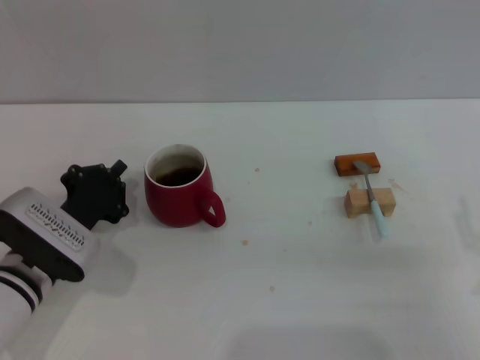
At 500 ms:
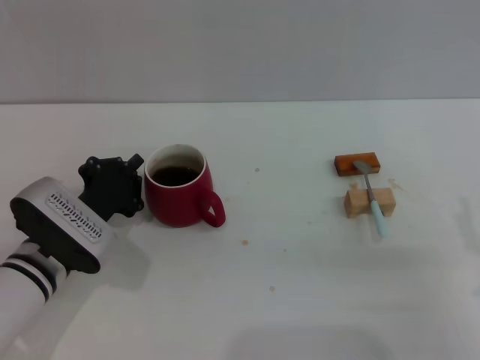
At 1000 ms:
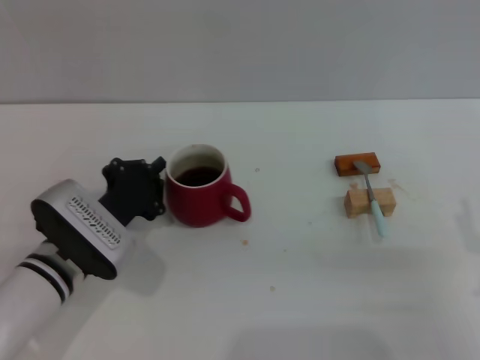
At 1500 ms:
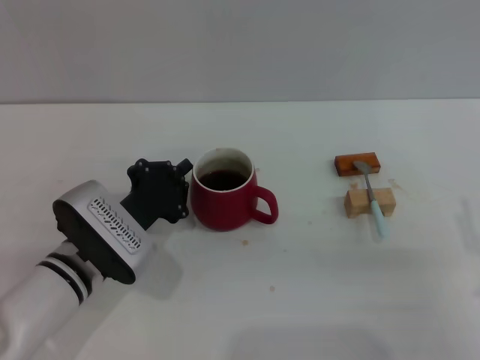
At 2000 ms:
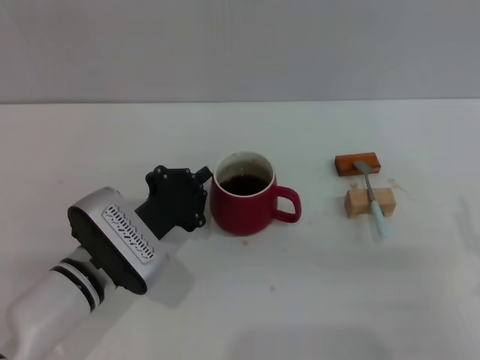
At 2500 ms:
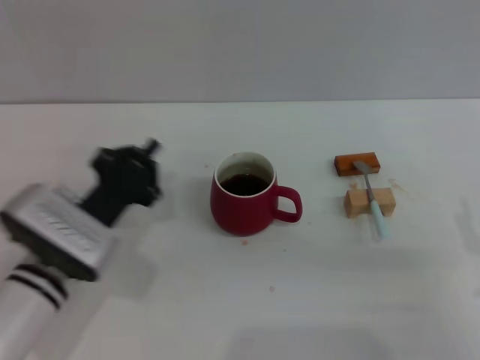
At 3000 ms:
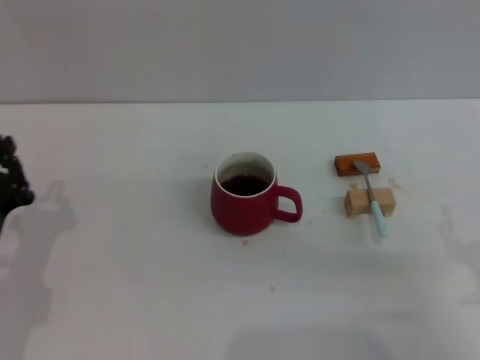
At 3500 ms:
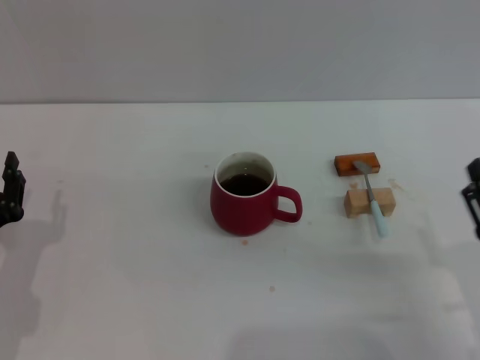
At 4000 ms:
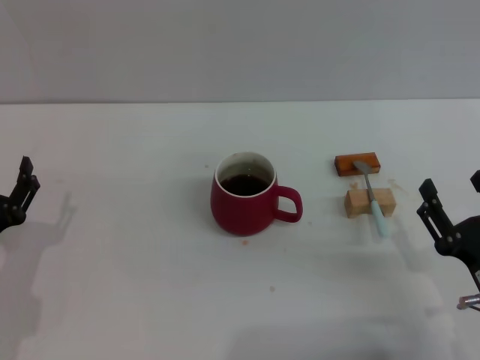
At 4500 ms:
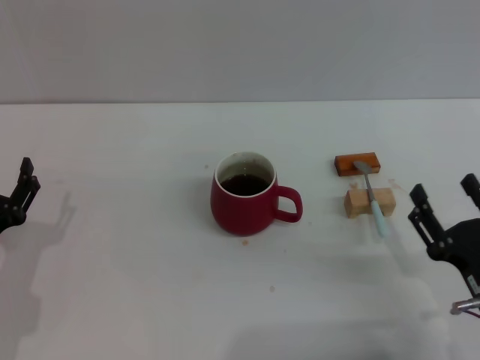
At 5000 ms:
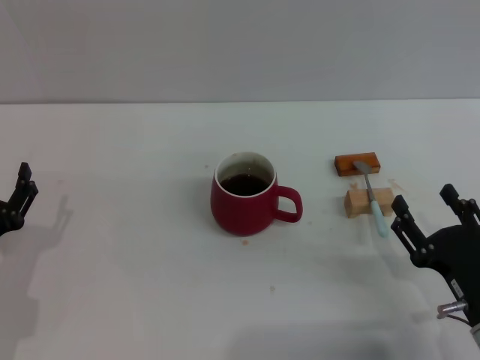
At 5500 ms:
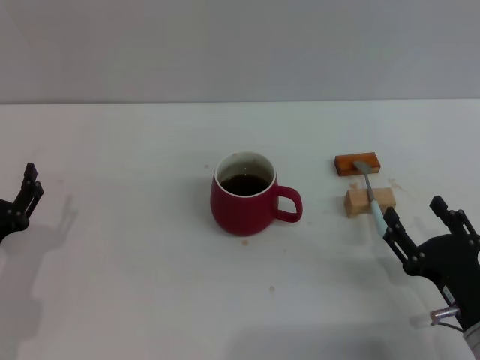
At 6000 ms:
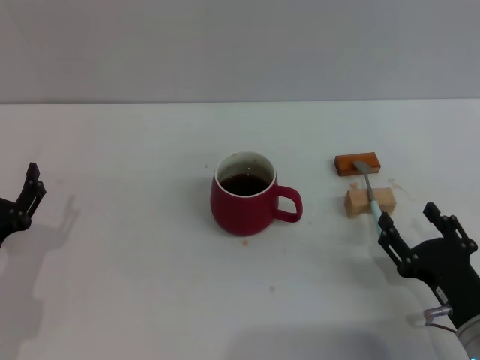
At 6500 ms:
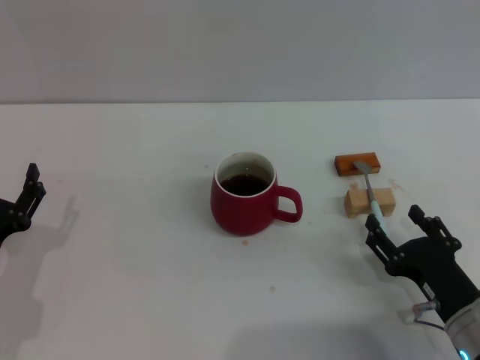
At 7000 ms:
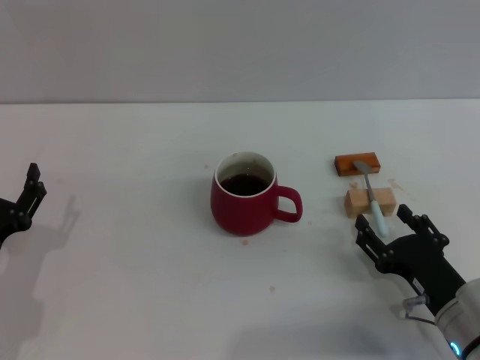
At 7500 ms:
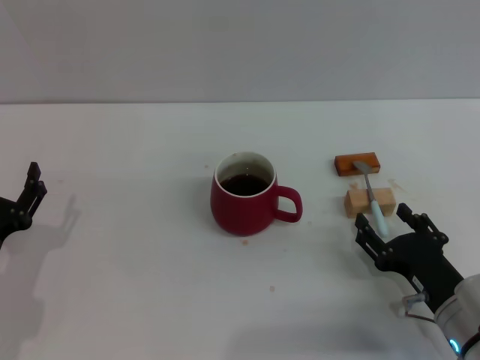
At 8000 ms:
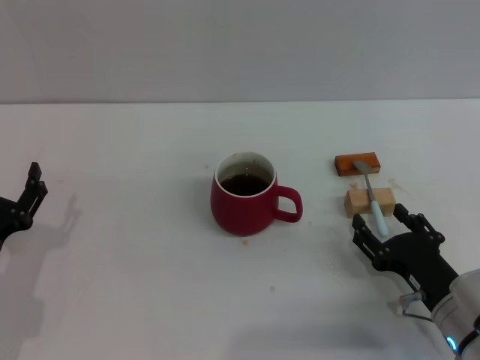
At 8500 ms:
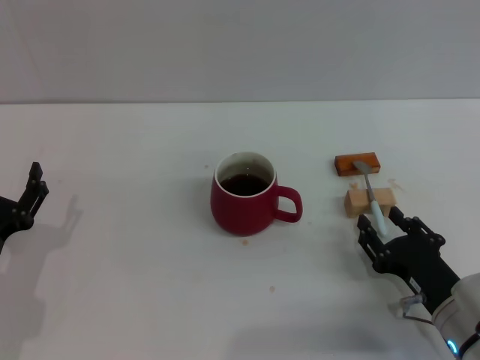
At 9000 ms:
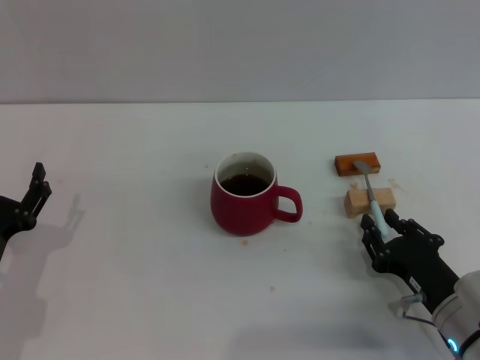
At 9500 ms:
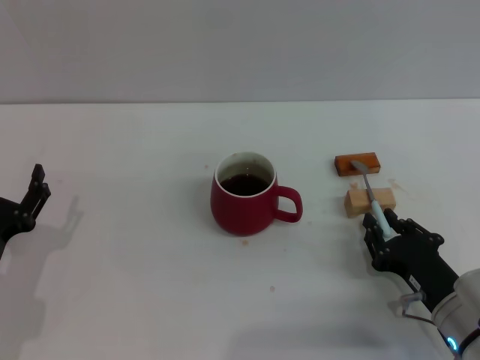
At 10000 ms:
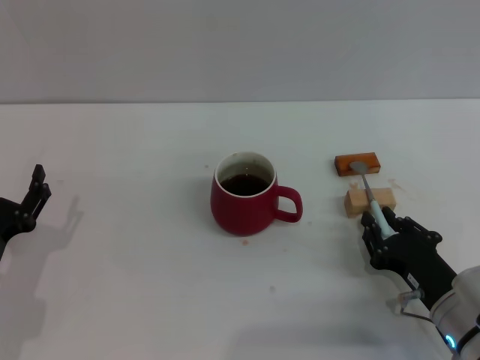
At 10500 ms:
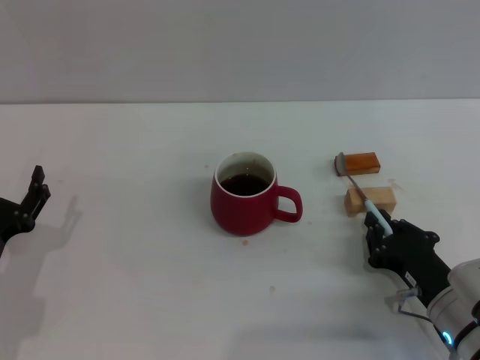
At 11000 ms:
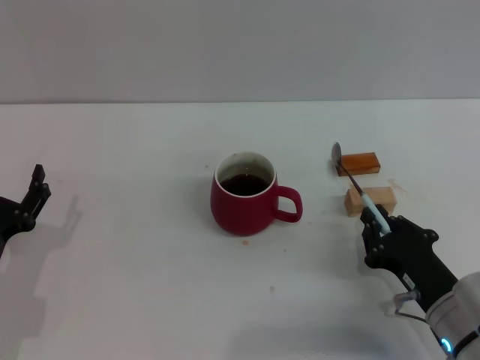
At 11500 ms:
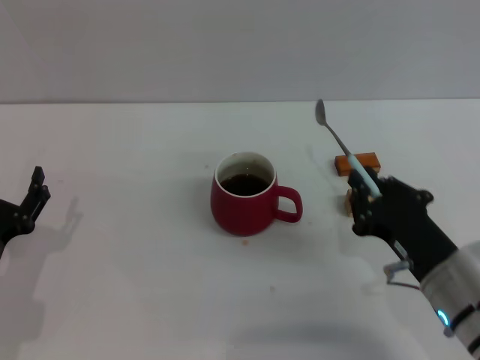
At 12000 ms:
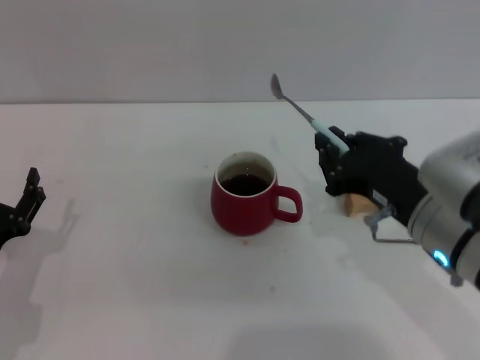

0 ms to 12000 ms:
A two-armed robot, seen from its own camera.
Task of the whole recording: Move the red cup to the center, lift the blue spoon, stir it three times in the cup, and put the spoon into the cup.
Step, 0 ms to 2000 ms: Move the cup with coffee to the center of view with the left gripper.
Step, 3000 ms to 11000 ms: Pick up the spoon with the right gripper.
0 ms to 2000 ms: The left gripper is displaced to the right by about 5 cm.
2000 ms to 4000 ms: The right gripper shifts by about 5 cm. The left gripper moves to the left and backward, some 15 cm, and opens.
4000 ms to 6000 ms: The grippers make only small movements.
6000 ms to 8000 ms: The grippers stay close to where they were, moving slightly.
8000 ms to 10000 ms: The right gripper closes its fingers.
10000 ms to 12000 ms: The right gripper heads upward, covering roughly 15 cm.

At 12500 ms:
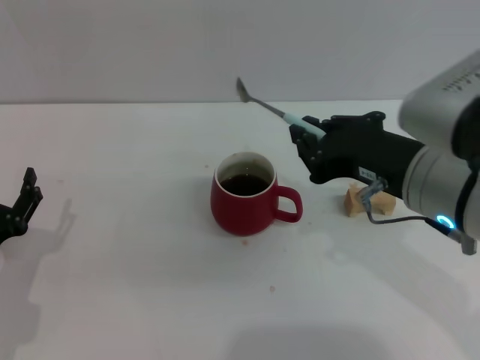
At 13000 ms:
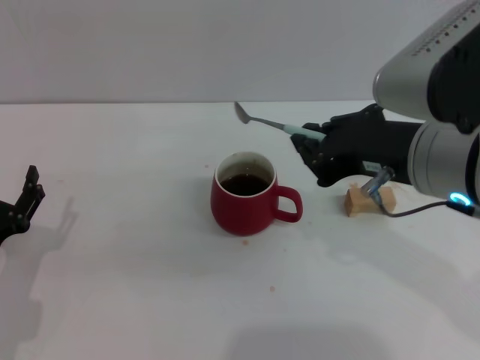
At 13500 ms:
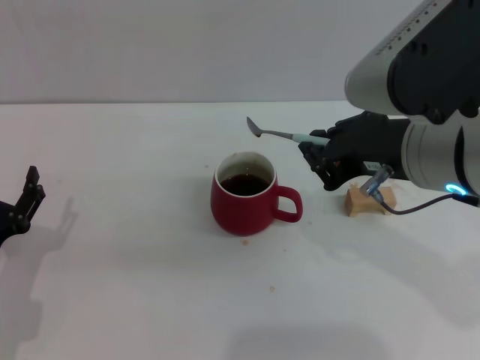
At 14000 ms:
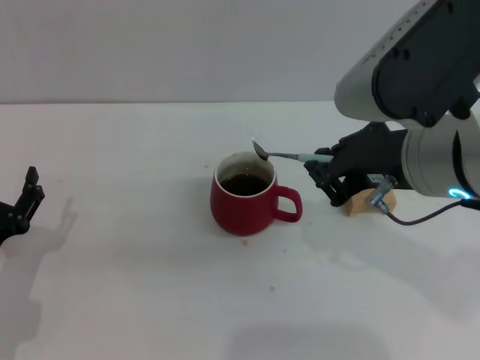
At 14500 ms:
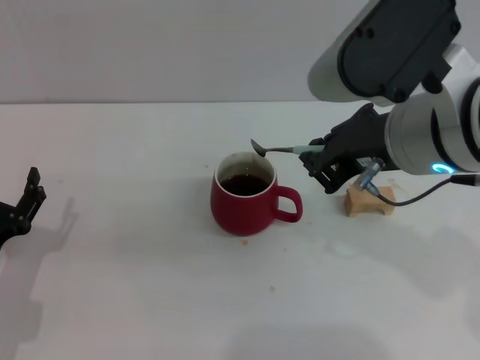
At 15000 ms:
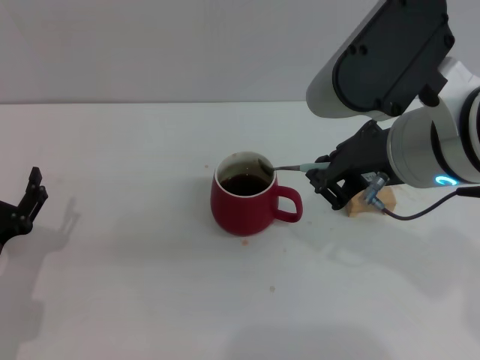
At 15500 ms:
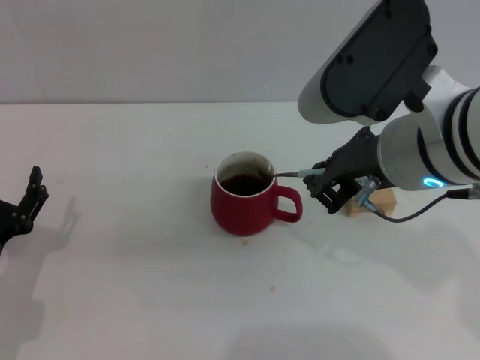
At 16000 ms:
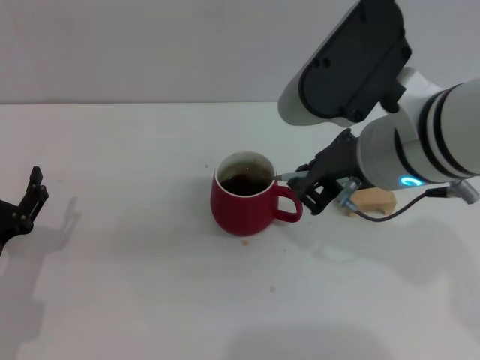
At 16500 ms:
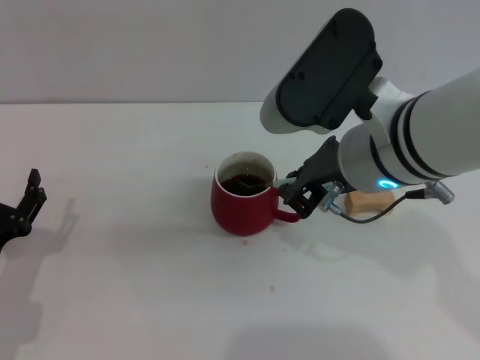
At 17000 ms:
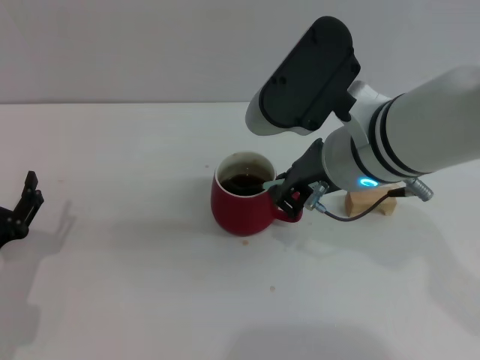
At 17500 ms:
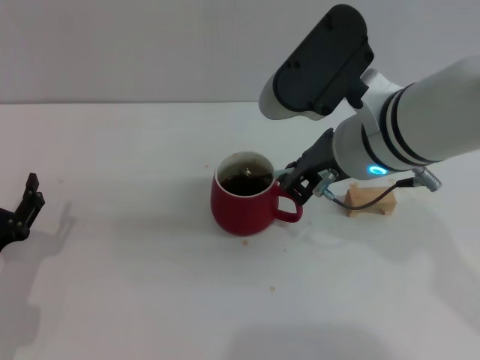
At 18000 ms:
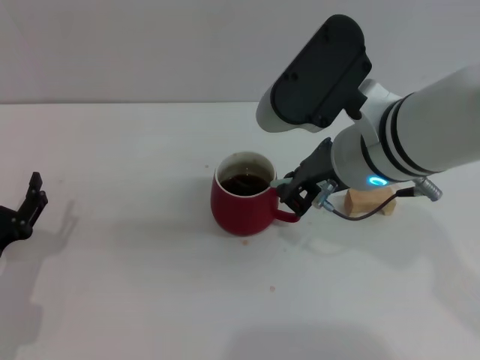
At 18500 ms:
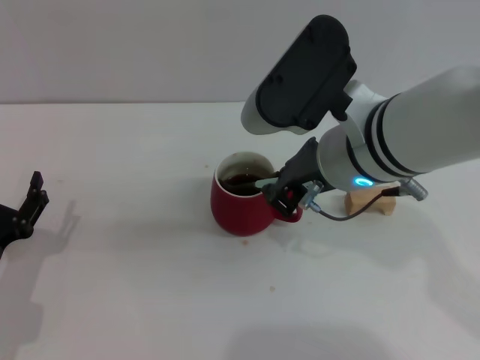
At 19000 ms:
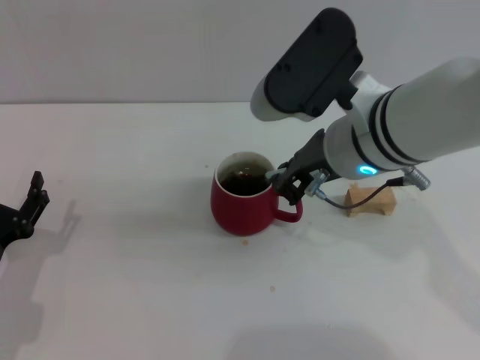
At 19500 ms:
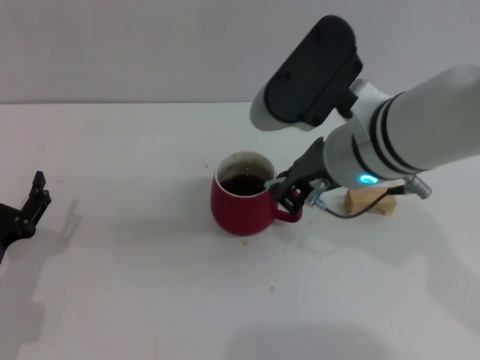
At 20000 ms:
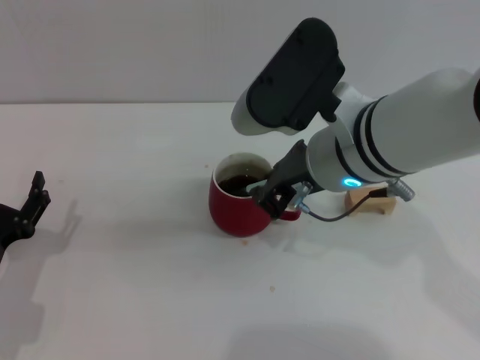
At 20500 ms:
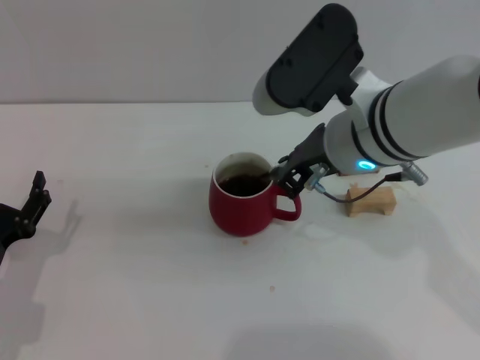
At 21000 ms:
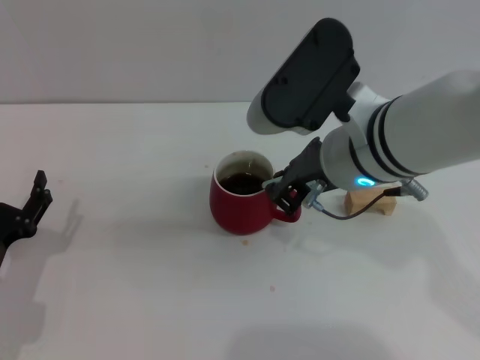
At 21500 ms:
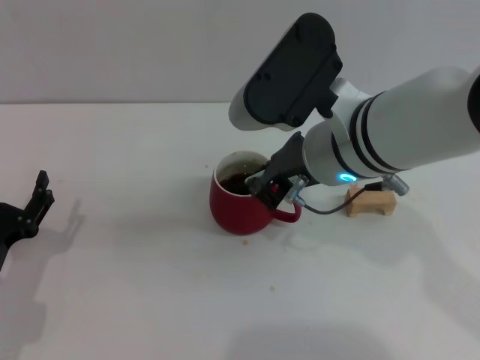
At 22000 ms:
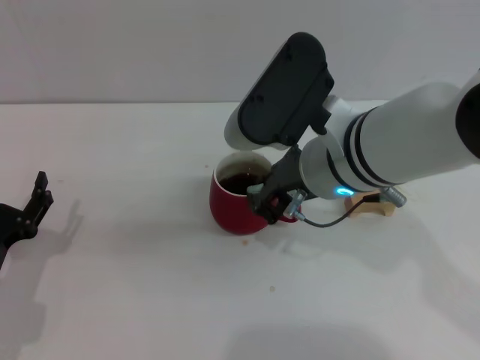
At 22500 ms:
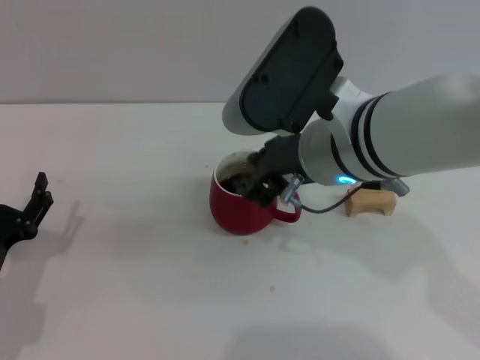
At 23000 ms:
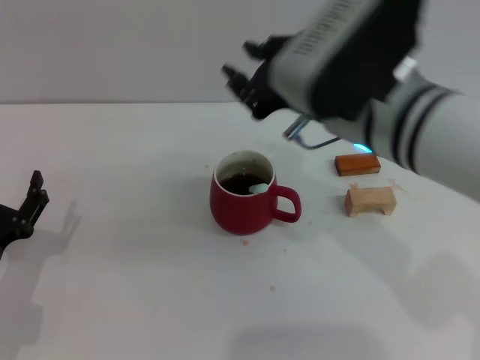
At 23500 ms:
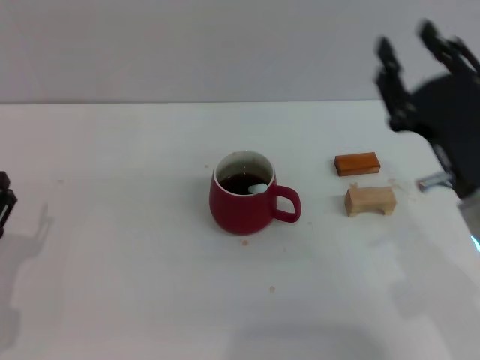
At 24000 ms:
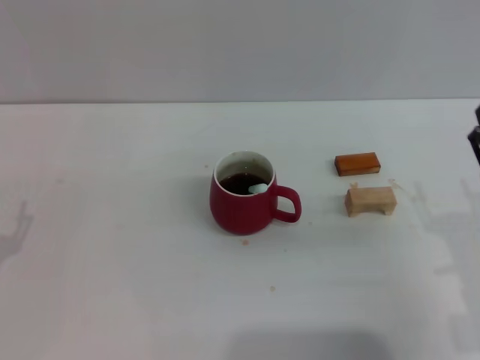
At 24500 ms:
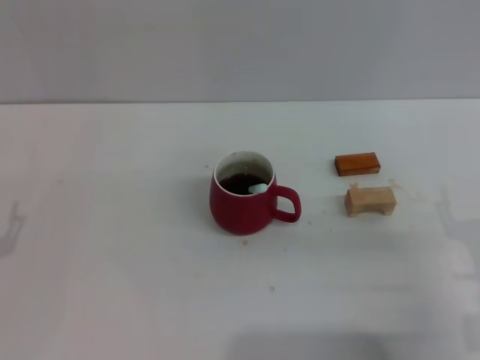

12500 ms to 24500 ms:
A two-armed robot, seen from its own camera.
Task of the whole recording: Move the red cup to the center, lift the blue spoon, stir it three times in the cup, and put the spoon into the cup.
Step, 12500 ms to 22500 ms: Stir the coffee in the cup with the right gripper.
12500 ms to 14500 ms: The right gripper is displaced upward by some 5 cm.
14500 ms to 16500 ms: The right gripper moves roughly 5 cm.
16500 ms to 22500 ms: The grippers stay close to where they were, moving slightly.
22500 ms to 24500 ms: The right gripper shifts some 25 cm to the right, downward and backward, and opens its fingers.

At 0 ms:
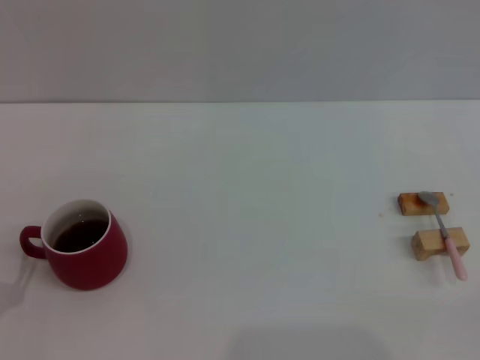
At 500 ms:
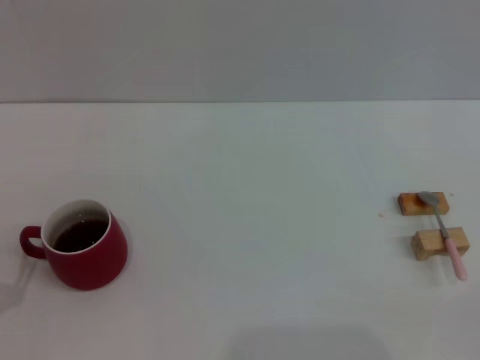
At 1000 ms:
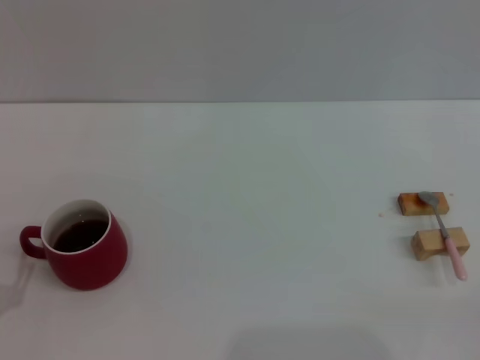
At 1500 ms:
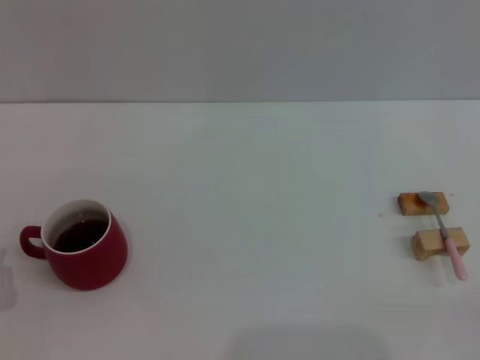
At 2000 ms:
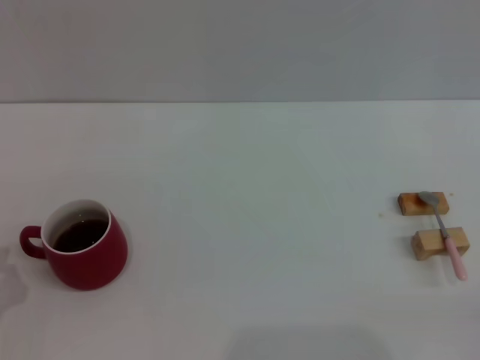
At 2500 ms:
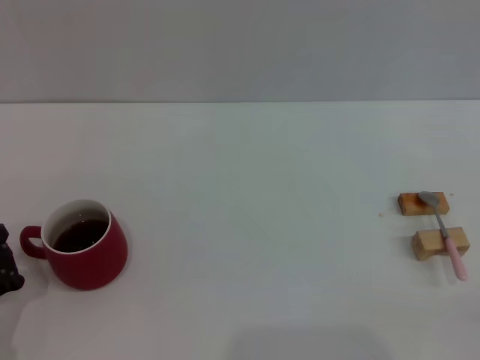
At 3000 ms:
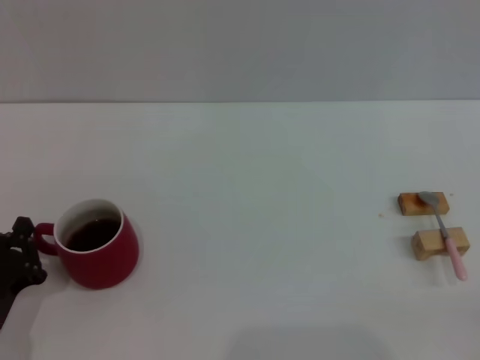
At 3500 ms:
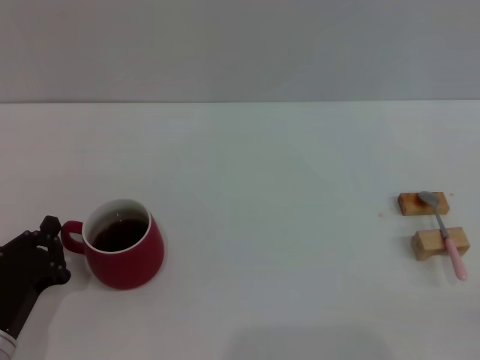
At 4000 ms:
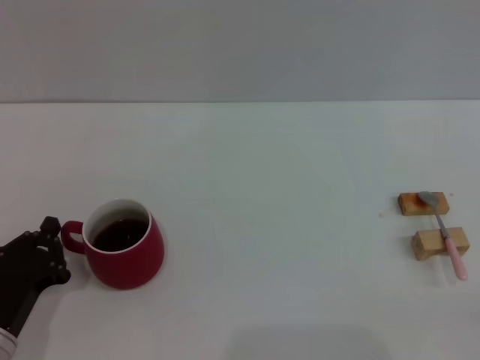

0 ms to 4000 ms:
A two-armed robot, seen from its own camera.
Task of the whole recording: Move the red cup to the center, lift the pink spoon, stir it three times in the cup, and put the spoon into the cup.
2000 ms to 4000 ms: The left gripper changes place by approximately 5 cm.
